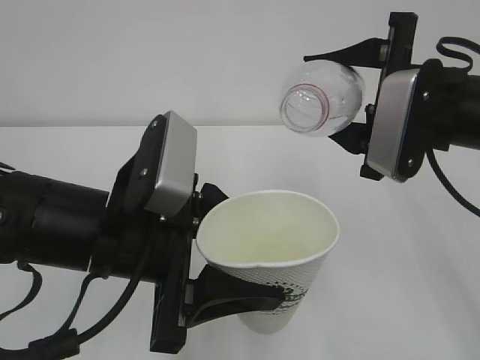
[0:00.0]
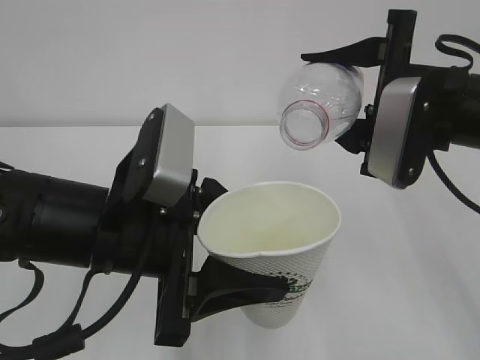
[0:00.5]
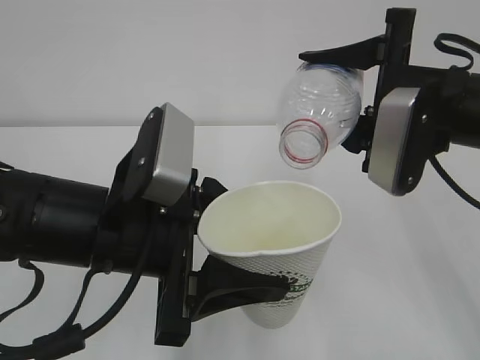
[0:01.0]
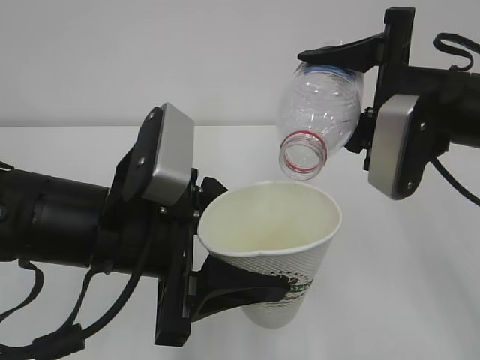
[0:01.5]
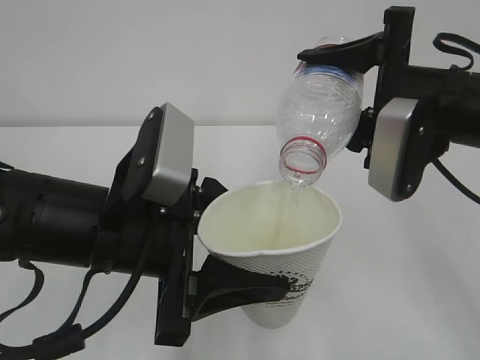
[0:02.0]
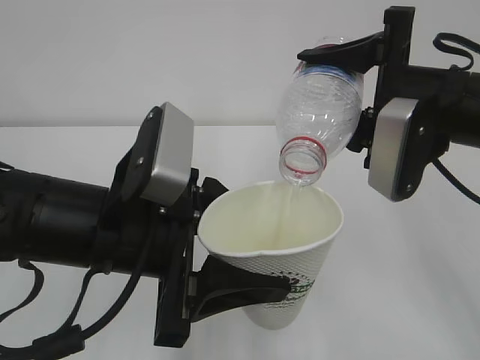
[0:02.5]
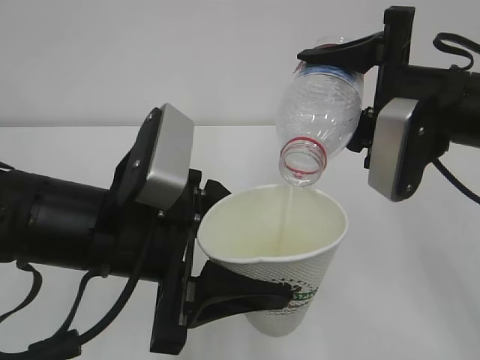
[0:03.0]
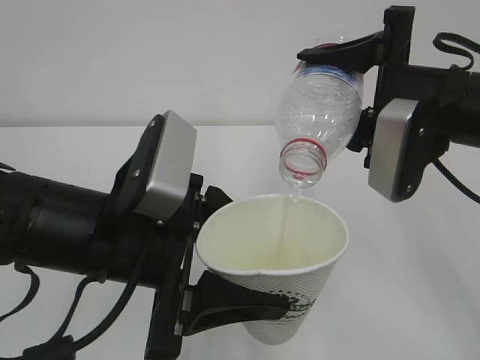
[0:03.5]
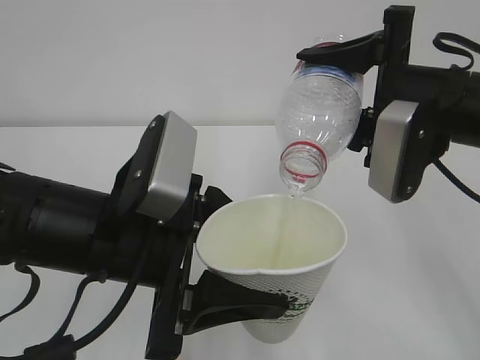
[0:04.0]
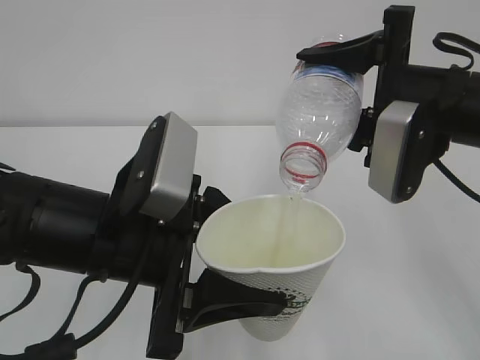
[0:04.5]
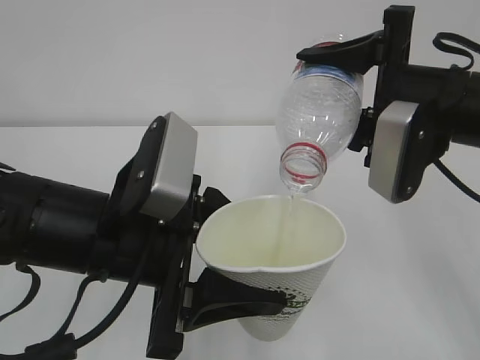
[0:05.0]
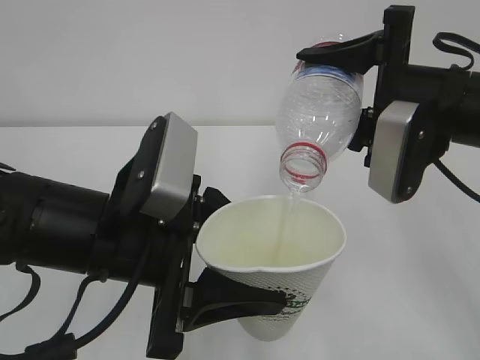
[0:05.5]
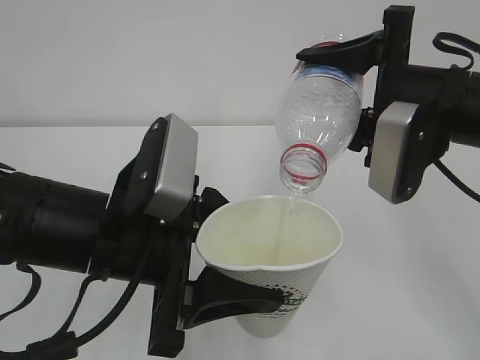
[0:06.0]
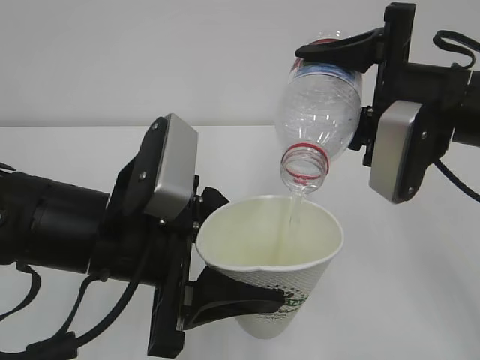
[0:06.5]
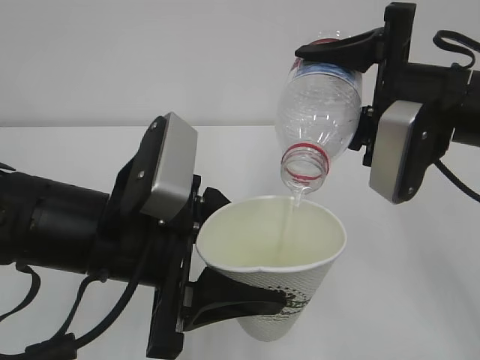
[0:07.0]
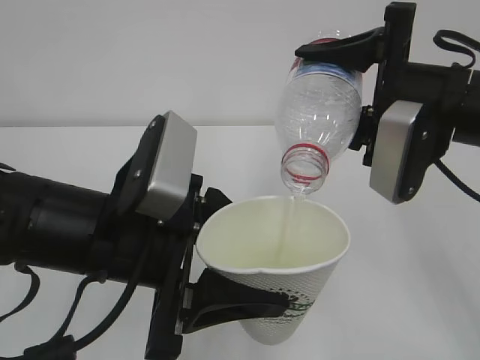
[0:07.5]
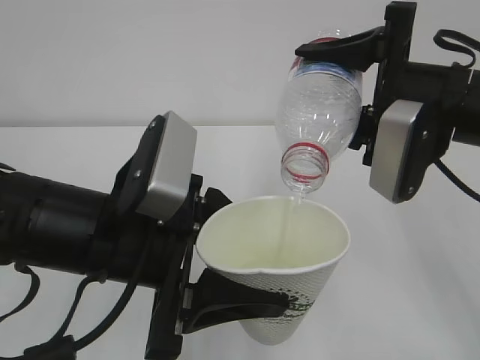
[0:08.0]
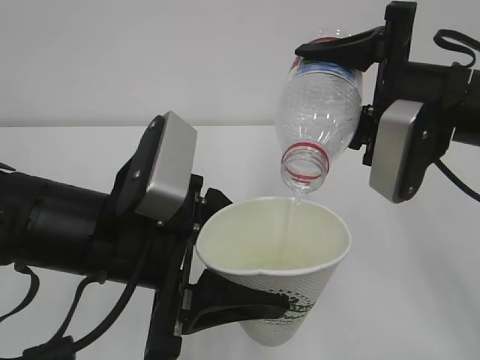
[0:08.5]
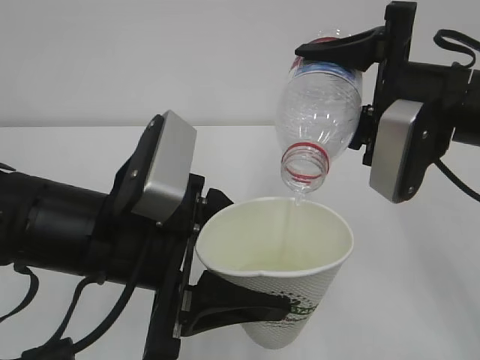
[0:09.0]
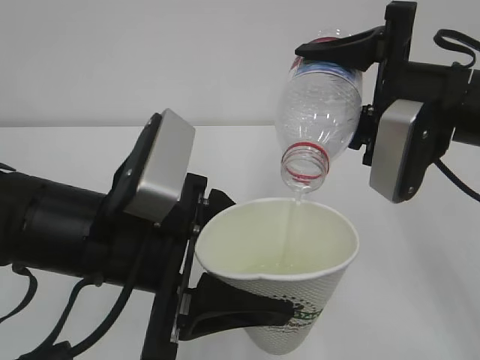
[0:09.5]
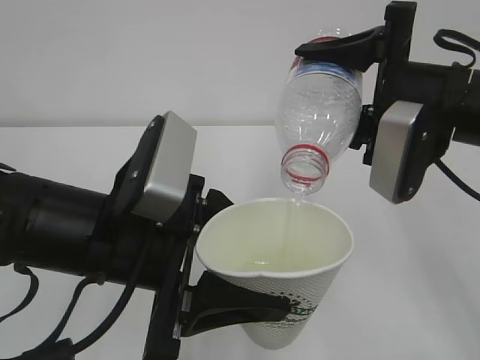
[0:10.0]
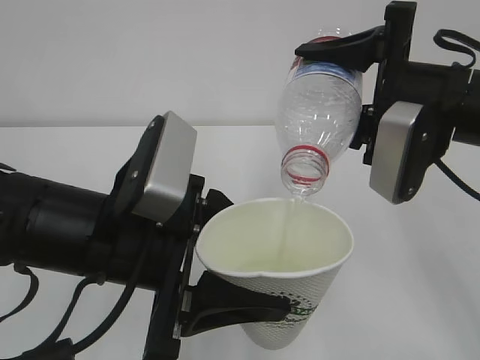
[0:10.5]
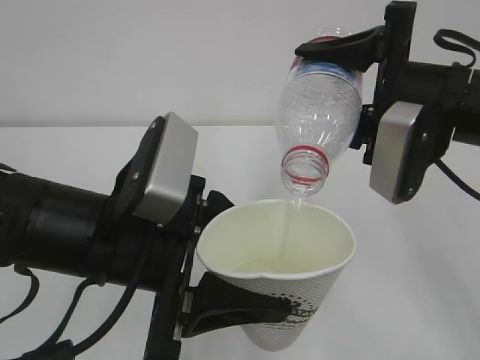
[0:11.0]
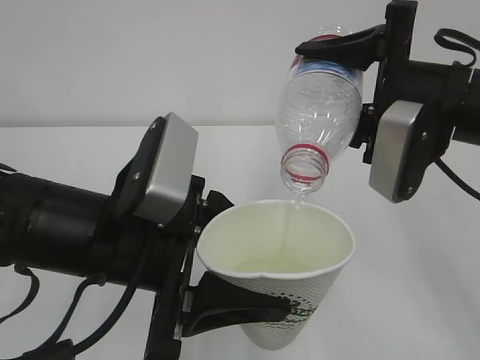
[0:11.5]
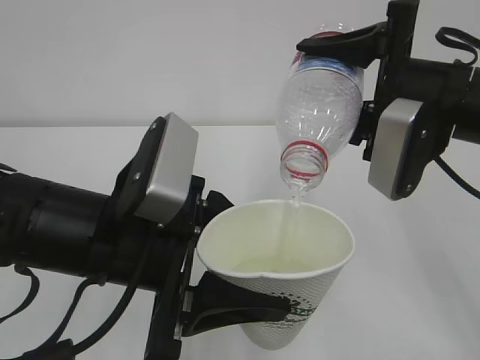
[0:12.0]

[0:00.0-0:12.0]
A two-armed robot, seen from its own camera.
0:00.0 to 0:02.0: The grippers move only a little.
0:02.0 to 0:08.0: Both grippers stay put.
0:08.0 to 0:12.0: Both grippers stay put.

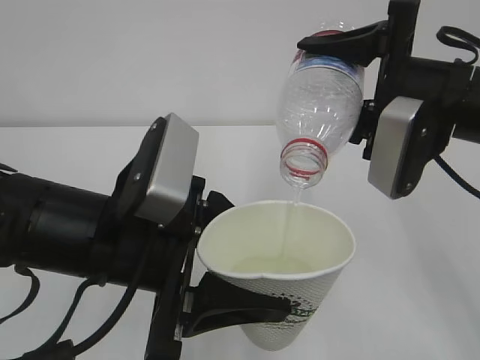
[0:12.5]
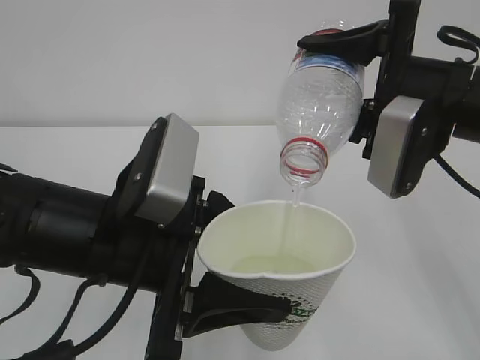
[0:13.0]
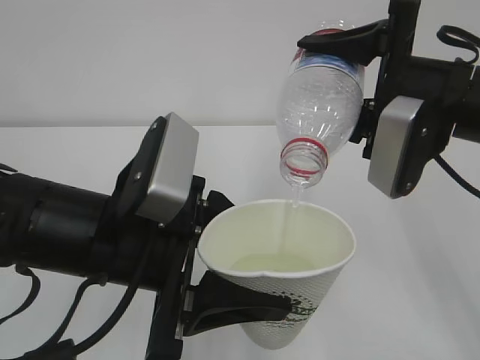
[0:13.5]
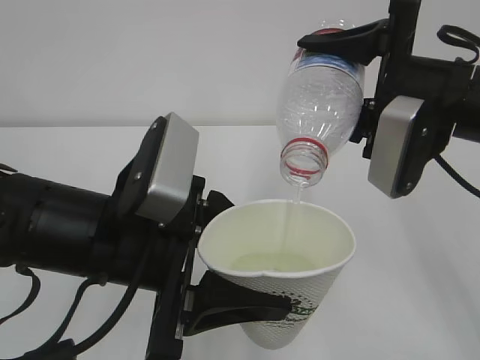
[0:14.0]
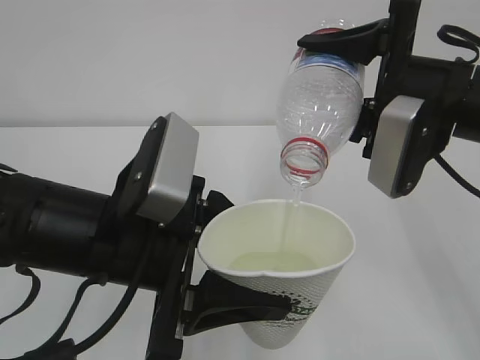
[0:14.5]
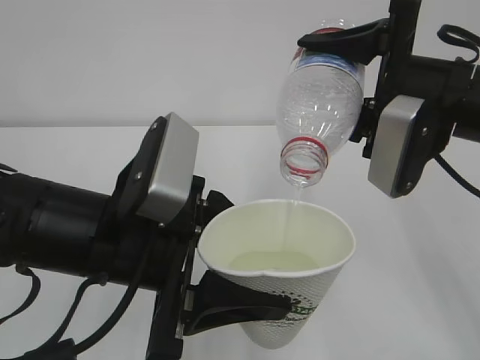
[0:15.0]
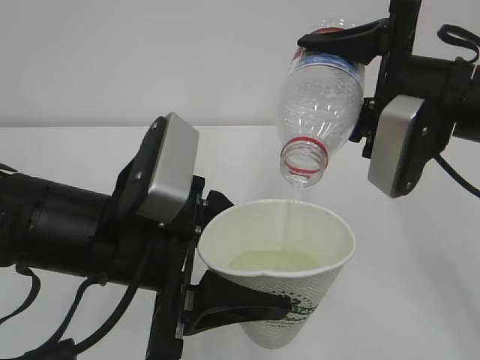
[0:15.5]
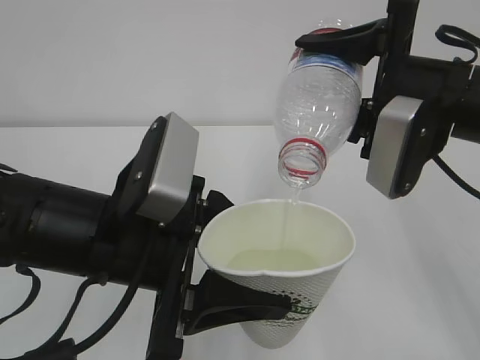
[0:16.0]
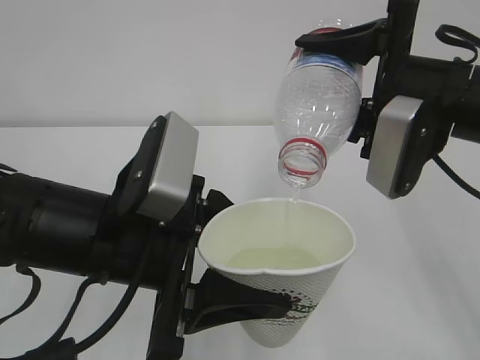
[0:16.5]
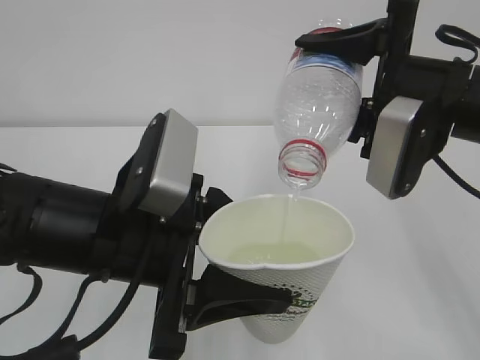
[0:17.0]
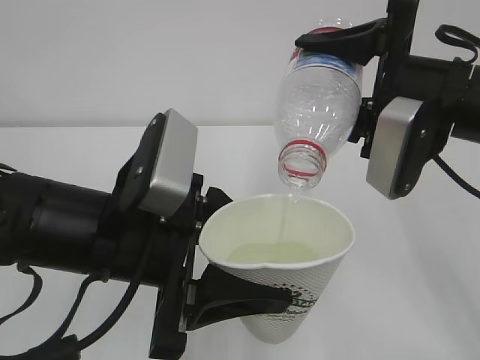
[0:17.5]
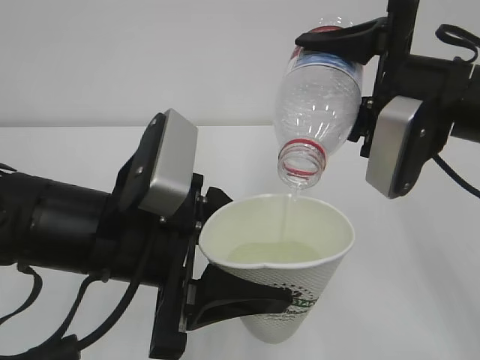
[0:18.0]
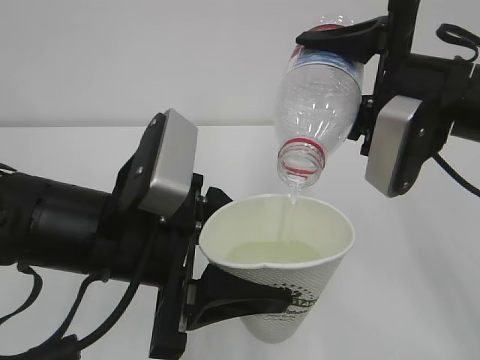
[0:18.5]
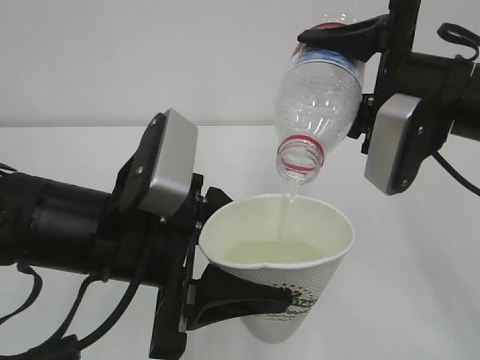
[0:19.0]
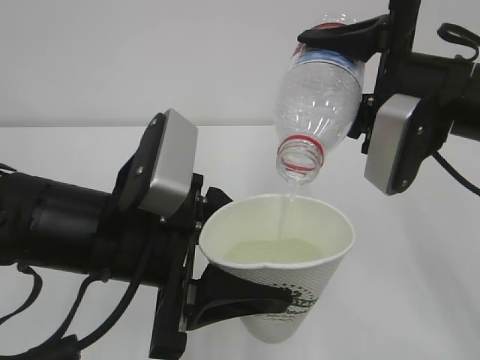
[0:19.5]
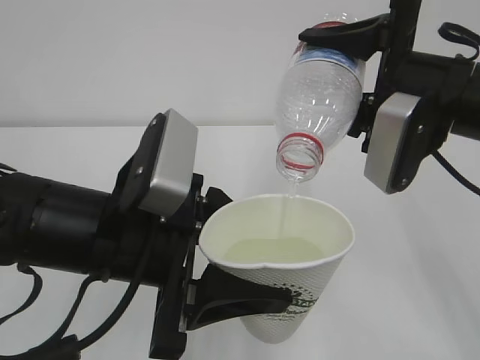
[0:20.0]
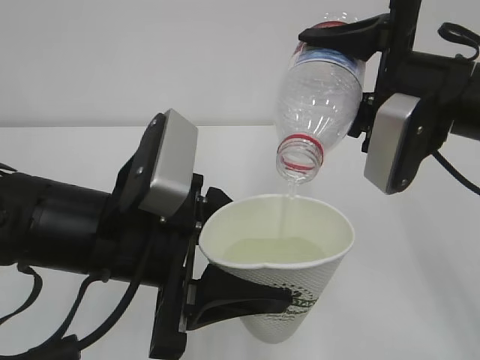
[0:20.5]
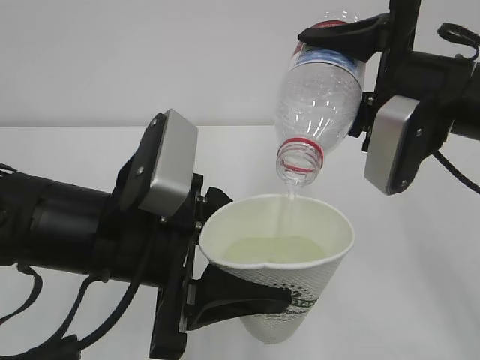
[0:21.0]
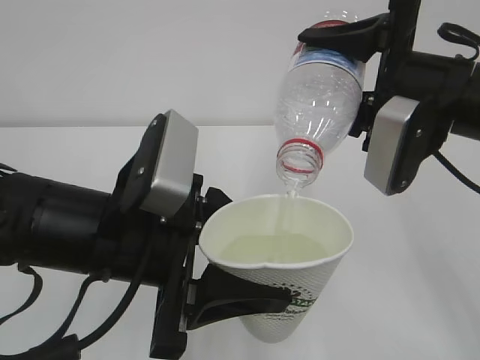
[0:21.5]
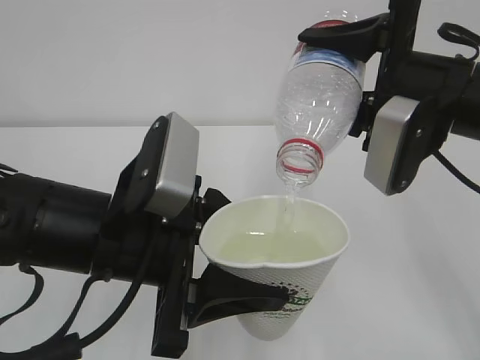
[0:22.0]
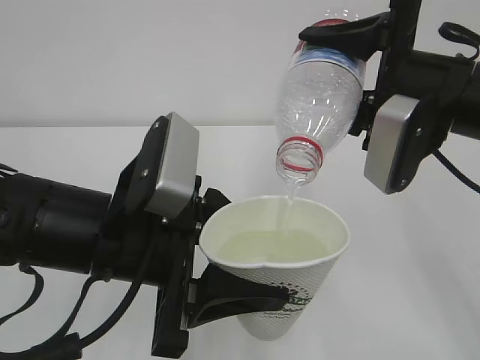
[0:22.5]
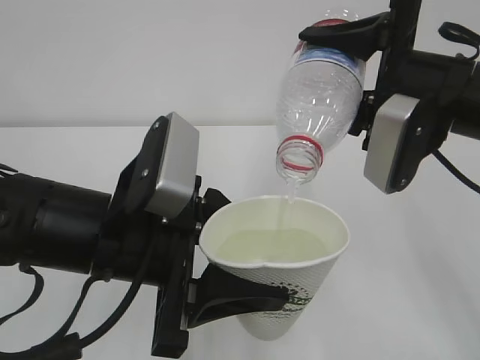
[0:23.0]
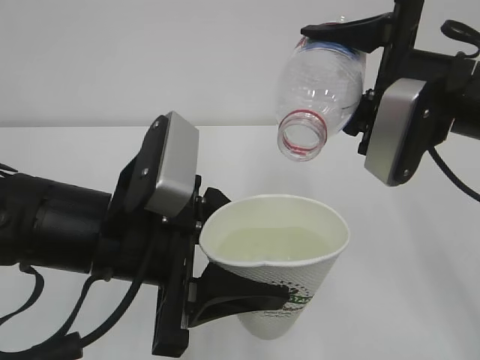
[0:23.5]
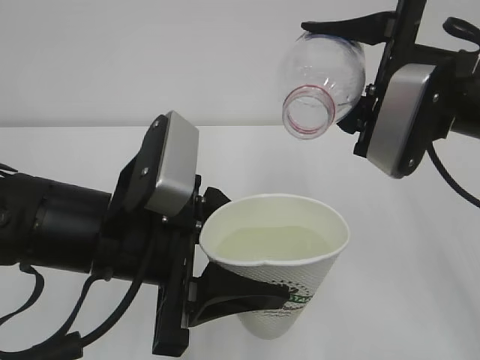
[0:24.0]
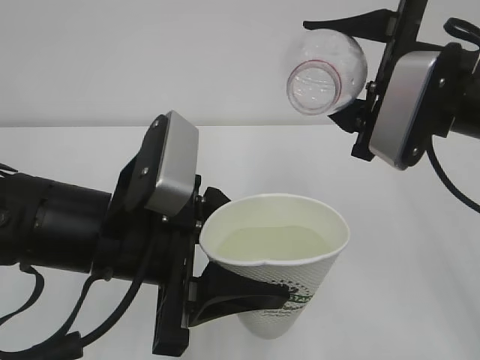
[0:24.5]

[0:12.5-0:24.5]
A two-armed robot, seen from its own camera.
0:12.5 to 0:22.5: Both grippers stay about where they are.

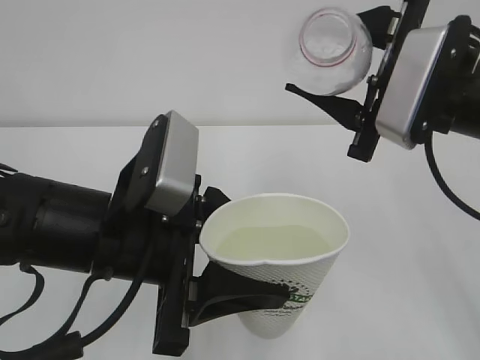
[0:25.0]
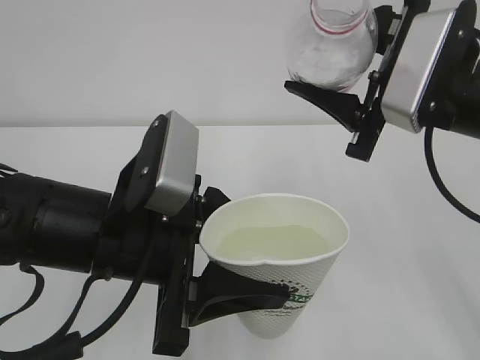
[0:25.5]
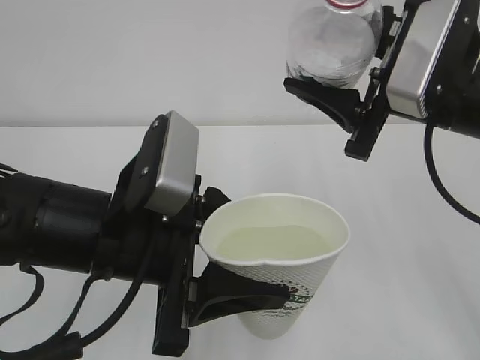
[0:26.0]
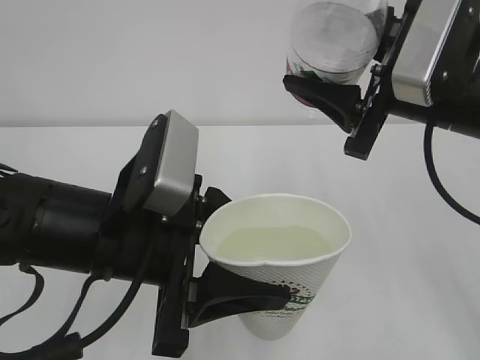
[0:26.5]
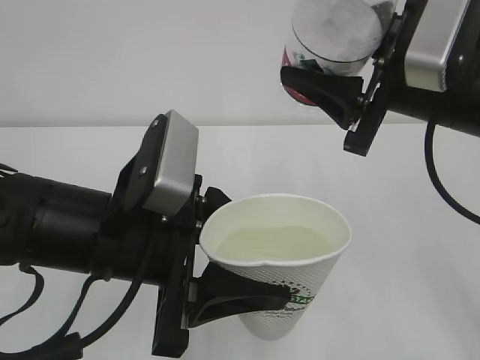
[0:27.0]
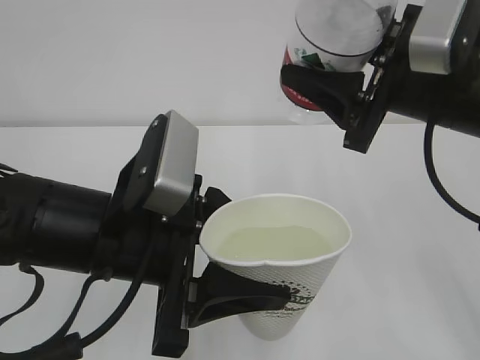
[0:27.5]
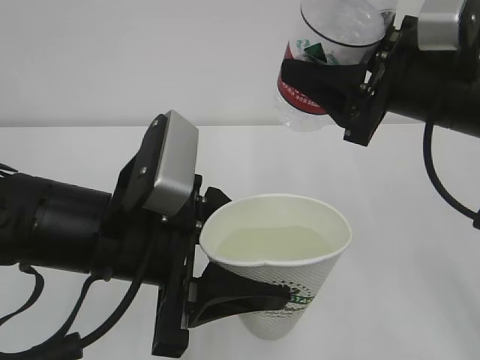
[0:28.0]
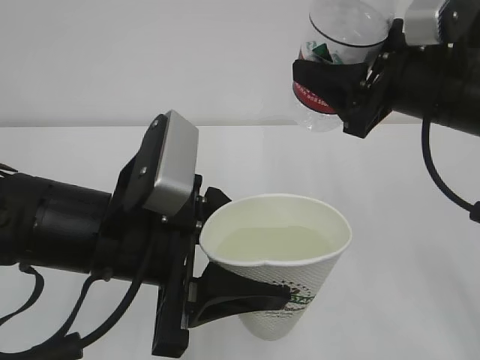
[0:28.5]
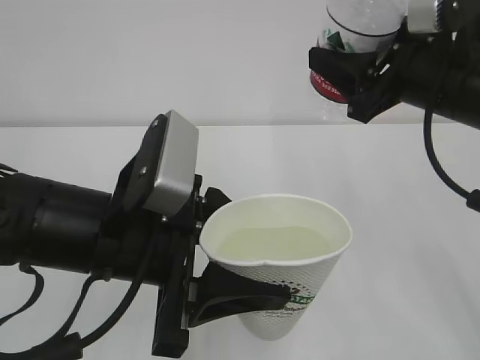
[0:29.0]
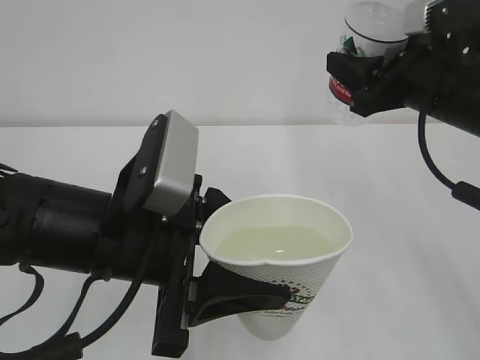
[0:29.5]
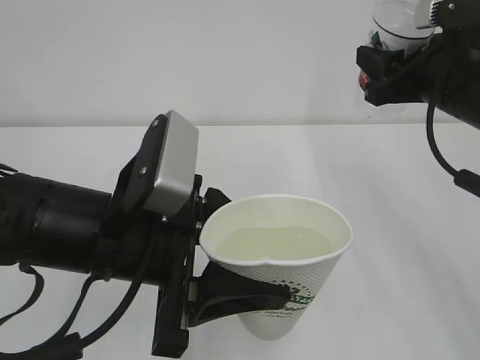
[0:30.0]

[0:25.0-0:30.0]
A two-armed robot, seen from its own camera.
0:27.5 to 0:30.0: The right gripper shifts by roughly 5 cm.
